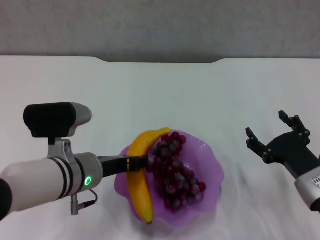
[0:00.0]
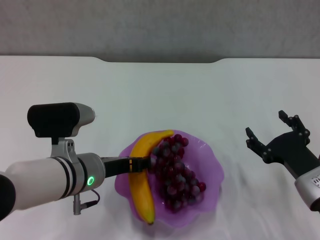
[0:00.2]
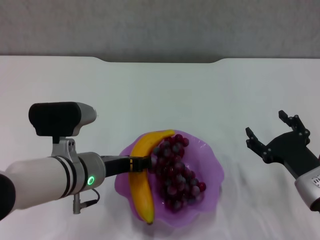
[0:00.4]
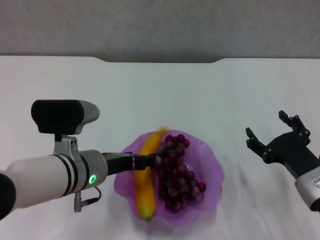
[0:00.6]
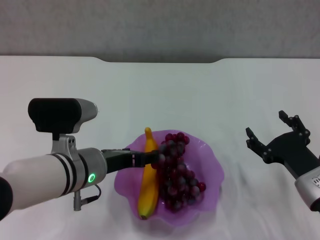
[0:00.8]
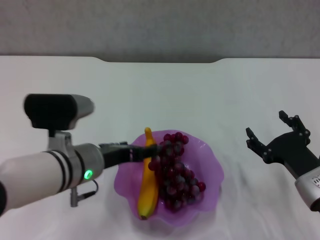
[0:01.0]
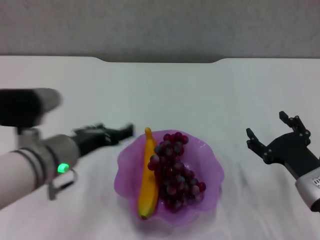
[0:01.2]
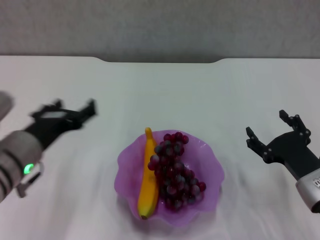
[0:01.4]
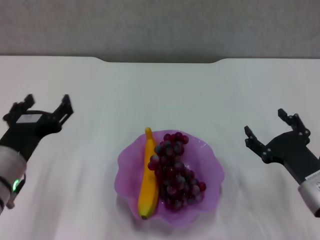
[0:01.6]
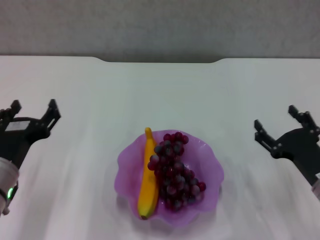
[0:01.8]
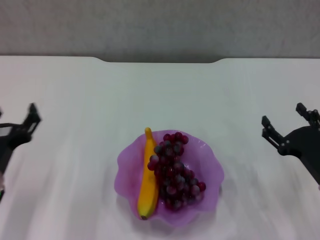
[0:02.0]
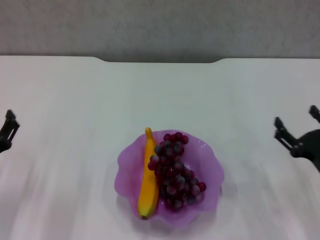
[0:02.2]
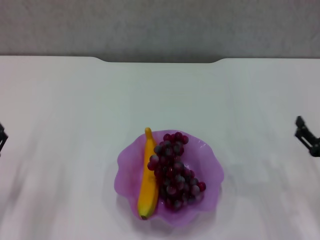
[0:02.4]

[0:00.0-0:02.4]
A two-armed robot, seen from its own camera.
0:00.0 to 0:01.2: The left gripper opens up.
0:01.2 to 0:02.4: The right gripper shifts roughly 5 cm to the right. Meanwhile the left gripper travels to the left, downward and backward by roughly 15 cm.

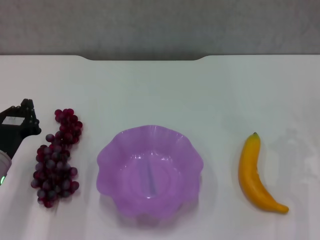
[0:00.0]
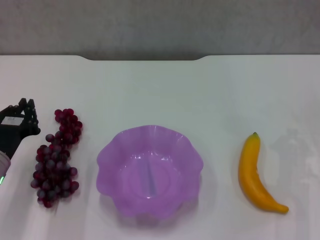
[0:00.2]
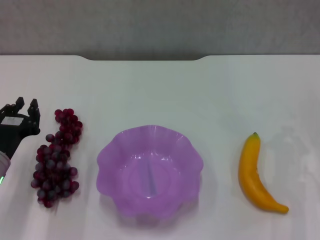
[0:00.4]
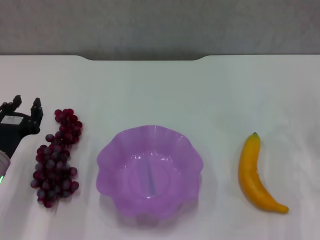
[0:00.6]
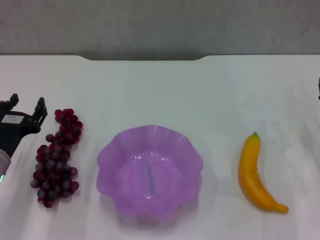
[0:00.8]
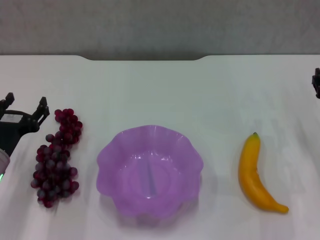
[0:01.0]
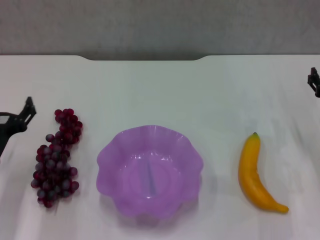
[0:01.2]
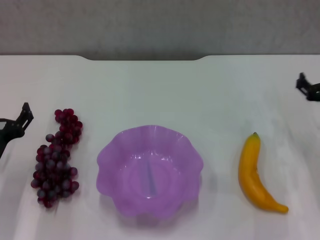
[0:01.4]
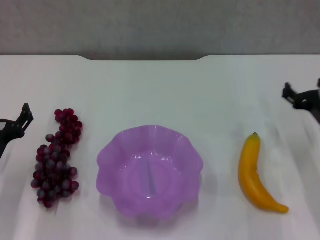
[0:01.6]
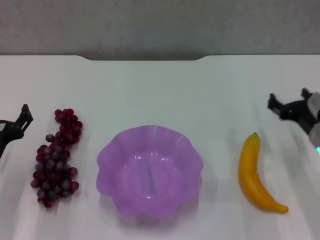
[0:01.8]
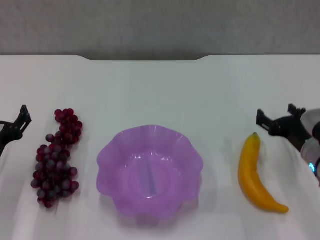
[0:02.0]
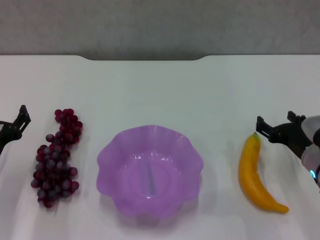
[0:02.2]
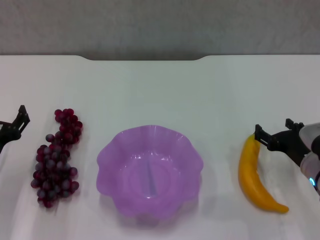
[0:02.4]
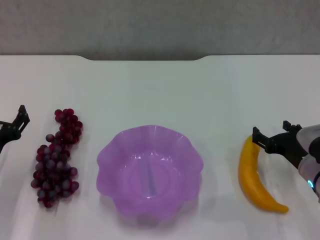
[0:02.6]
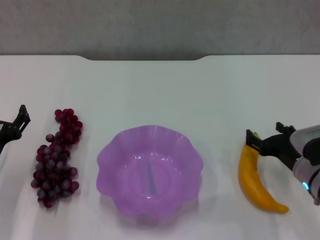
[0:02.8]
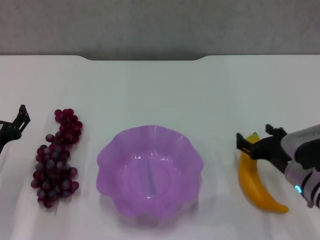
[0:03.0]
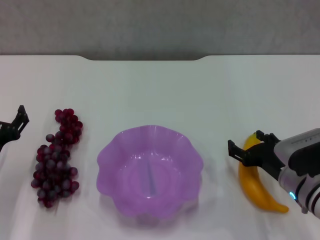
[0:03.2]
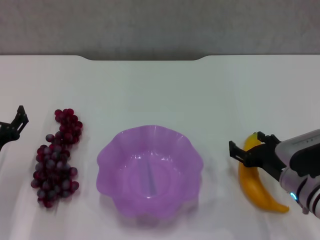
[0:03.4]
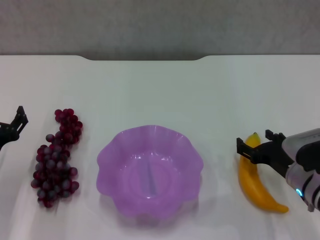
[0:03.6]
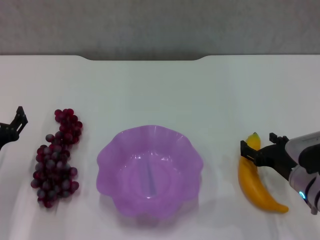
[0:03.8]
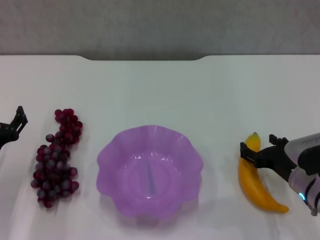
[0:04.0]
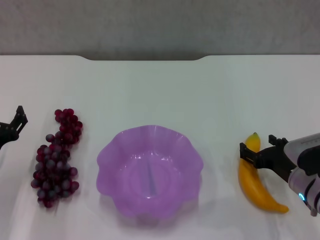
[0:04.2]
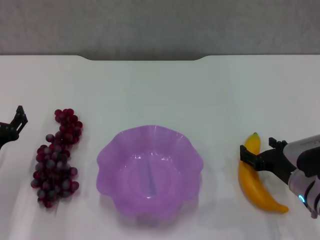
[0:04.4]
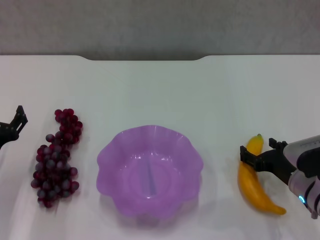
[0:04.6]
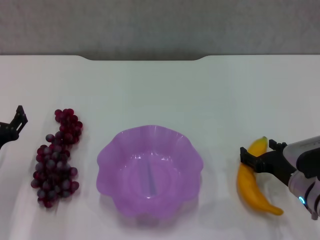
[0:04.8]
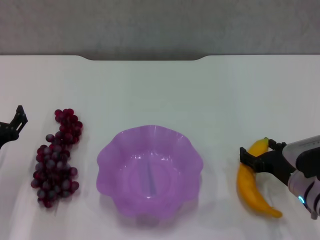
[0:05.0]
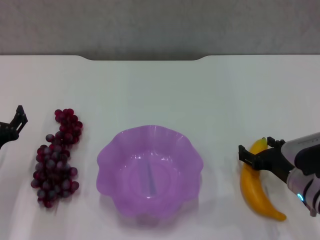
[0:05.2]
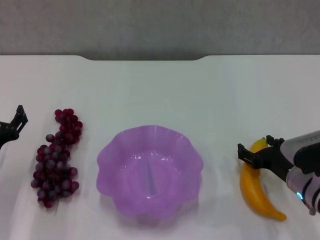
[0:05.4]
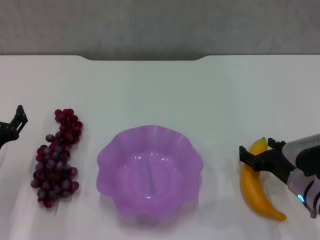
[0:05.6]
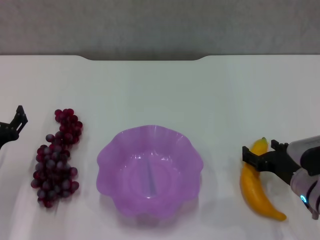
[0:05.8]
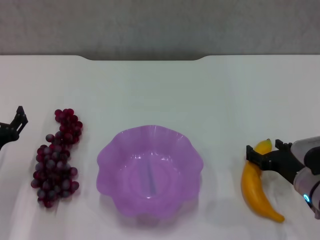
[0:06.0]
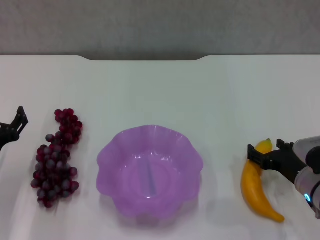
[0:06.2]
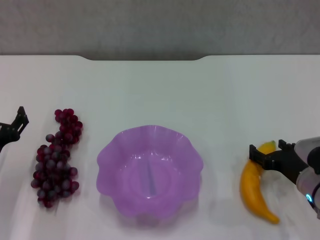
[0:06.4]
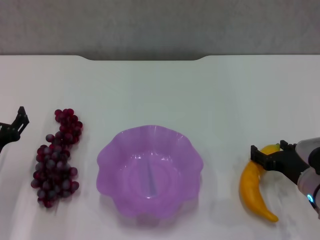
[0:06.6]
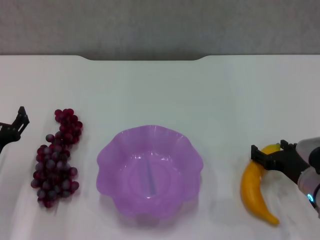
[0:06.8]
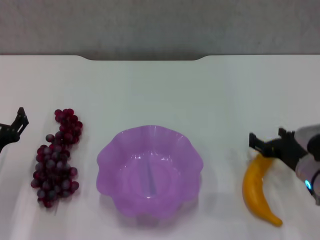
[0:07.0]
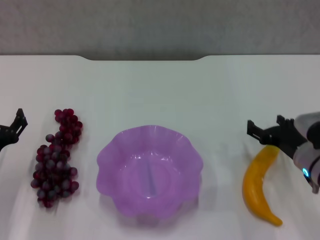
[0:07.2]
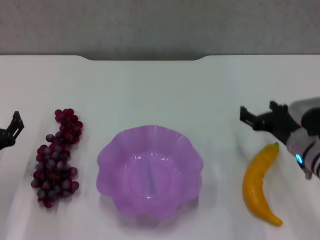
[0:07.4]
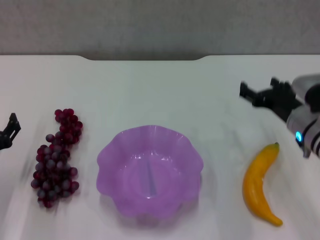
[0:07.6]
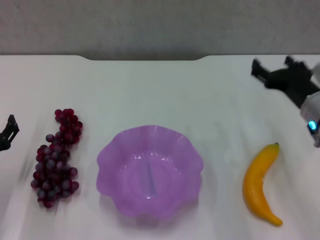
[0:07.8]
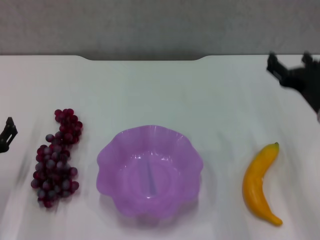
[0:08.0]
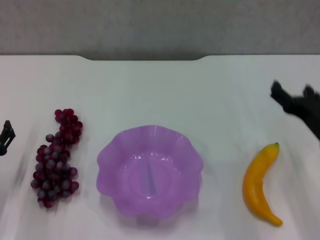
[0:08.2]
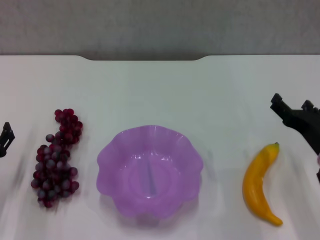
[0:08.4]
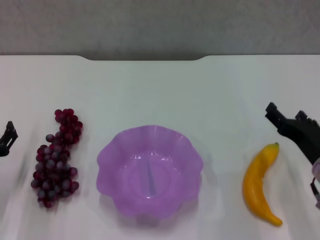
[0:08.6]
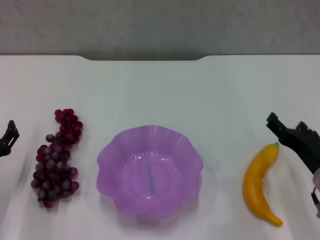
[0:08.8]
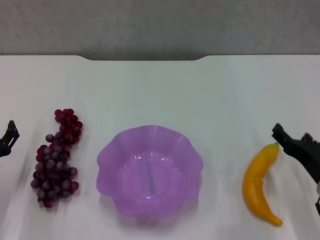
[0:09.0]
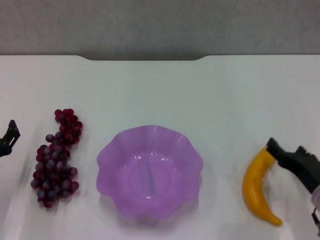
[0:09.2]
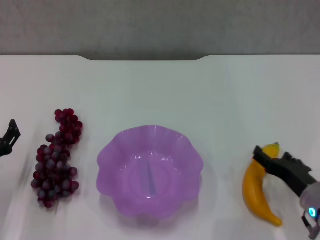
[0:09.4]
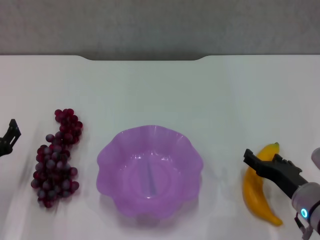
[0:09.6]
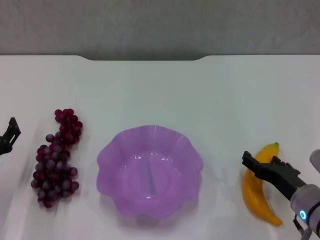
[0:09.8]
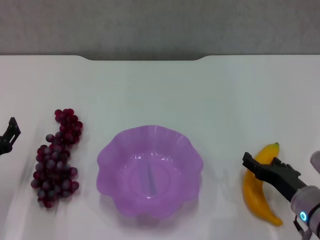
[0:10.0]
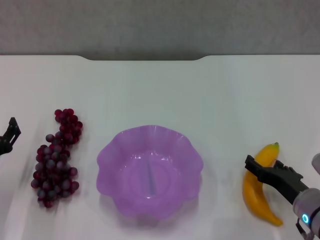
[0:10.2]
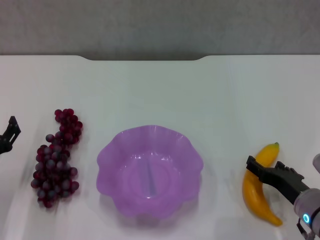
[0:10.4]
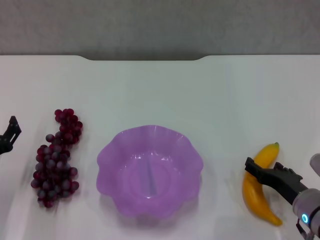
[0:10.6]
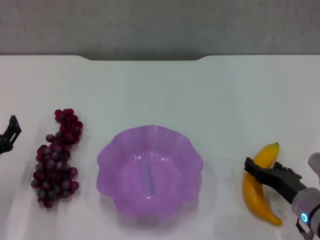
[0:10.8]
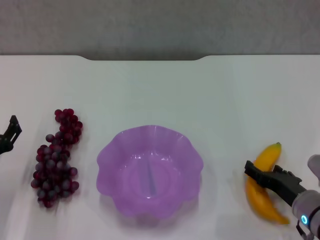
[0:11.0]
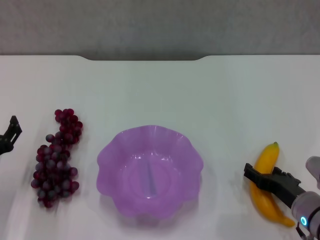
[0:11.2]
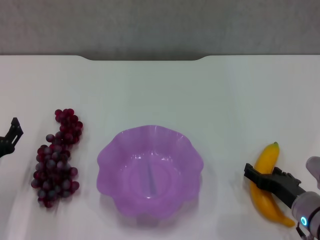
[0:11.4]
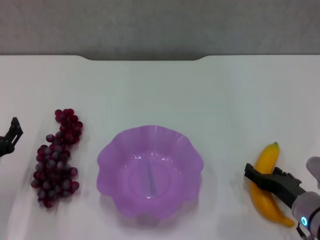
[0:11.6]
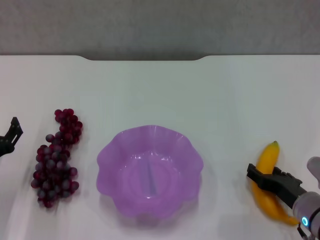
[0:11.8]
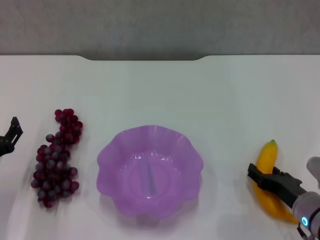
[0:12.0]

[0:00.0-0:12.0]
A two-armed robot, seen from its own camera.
0:00.0 to 0:01.6: The right gripper moves about 5 cm, and opens, while the left gripper opens its fingers.
0:01.6 to 0:03.0: The right gripper shifts approximately 5 cm backward.
0:03.0 to 0:04.4: The grippers make only small movements.
0:04.4 to 0:06.0: Both grippers stay about where they are.
0:06.0 to 0:07.6: The right gripper heads upward and forward, covering some 10 cm.
0:07.6 to 0:09.0: The right gripper is displaced backward by some 10 cm.
0:09.0 to 0:10.4: The grippers stay close to where they were, moving slightly.
0:10.4 to 0:12.0: The two grippers keep their place.

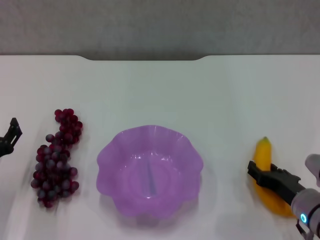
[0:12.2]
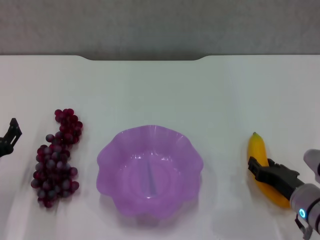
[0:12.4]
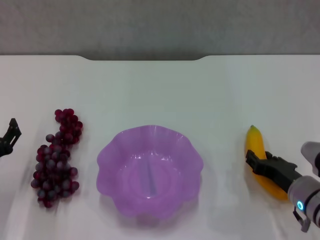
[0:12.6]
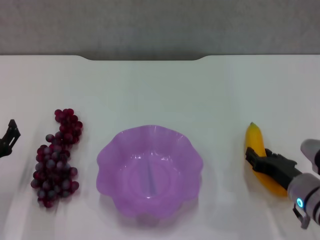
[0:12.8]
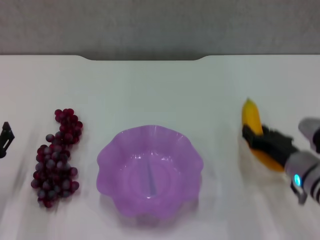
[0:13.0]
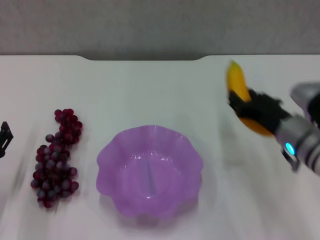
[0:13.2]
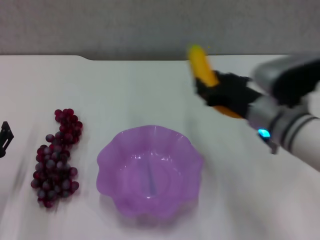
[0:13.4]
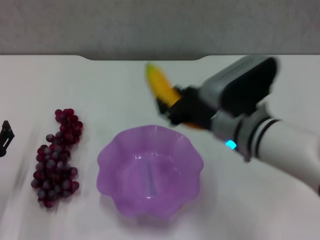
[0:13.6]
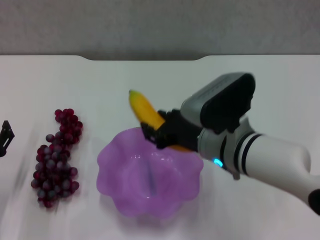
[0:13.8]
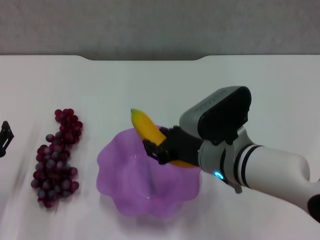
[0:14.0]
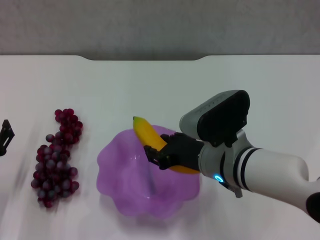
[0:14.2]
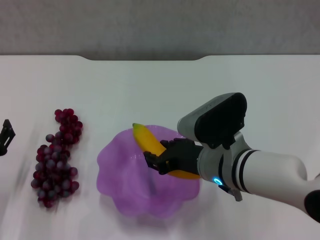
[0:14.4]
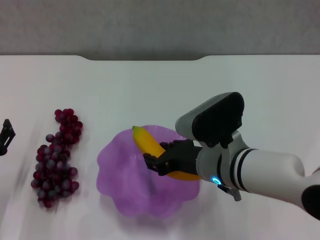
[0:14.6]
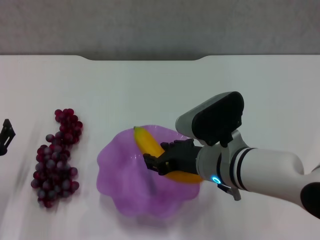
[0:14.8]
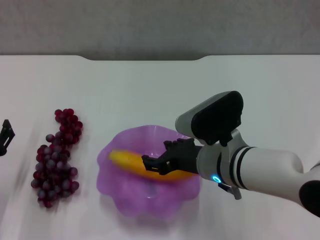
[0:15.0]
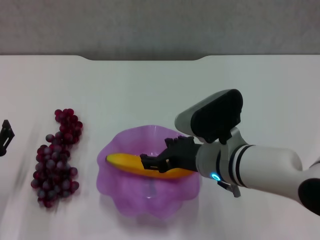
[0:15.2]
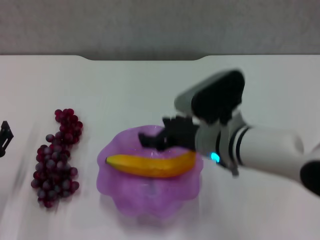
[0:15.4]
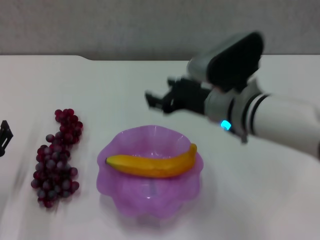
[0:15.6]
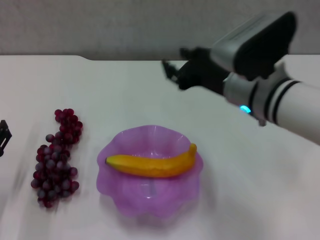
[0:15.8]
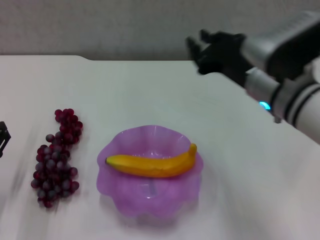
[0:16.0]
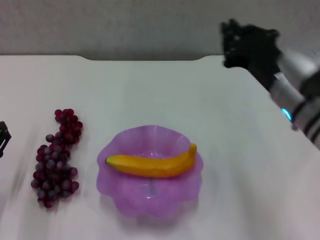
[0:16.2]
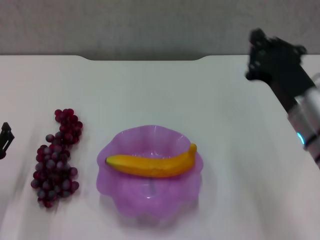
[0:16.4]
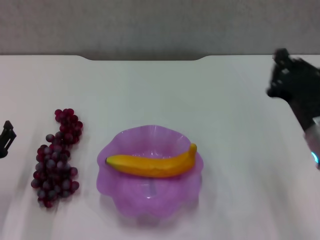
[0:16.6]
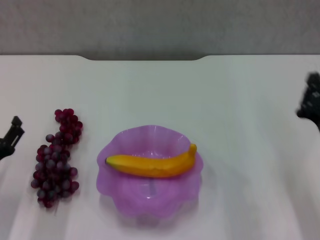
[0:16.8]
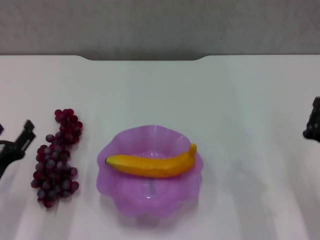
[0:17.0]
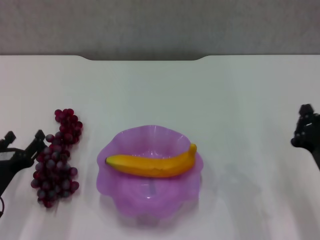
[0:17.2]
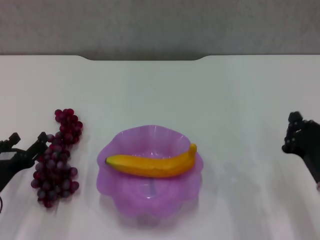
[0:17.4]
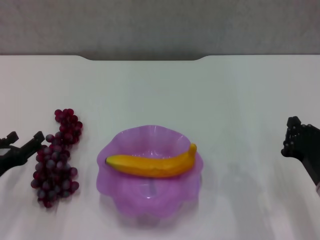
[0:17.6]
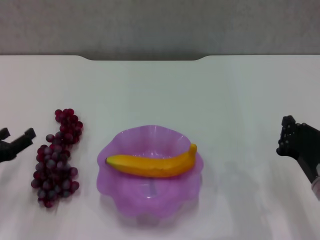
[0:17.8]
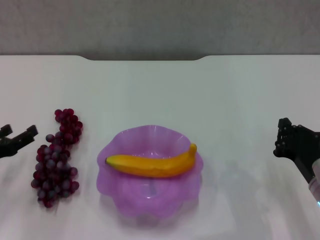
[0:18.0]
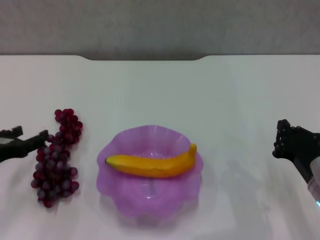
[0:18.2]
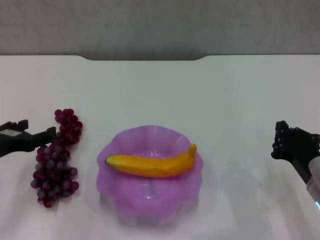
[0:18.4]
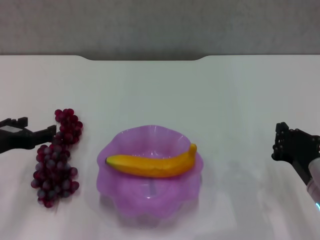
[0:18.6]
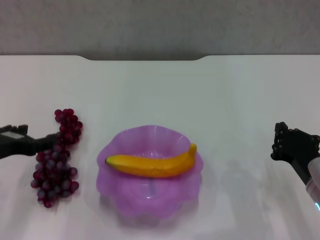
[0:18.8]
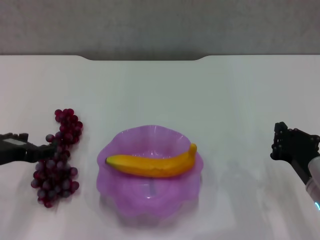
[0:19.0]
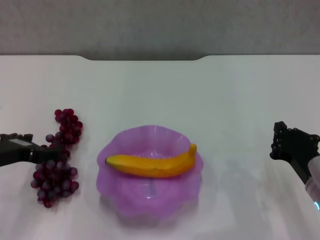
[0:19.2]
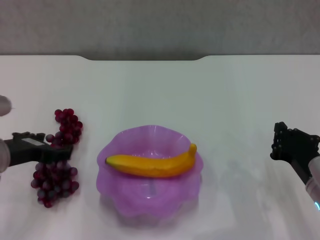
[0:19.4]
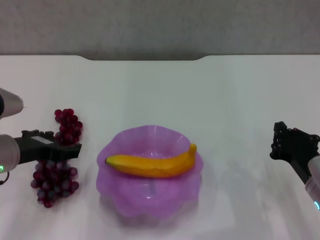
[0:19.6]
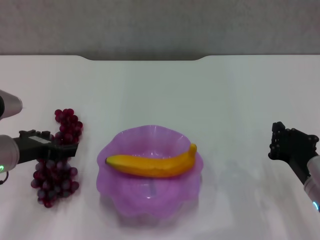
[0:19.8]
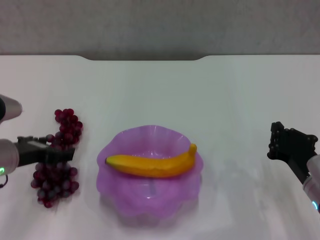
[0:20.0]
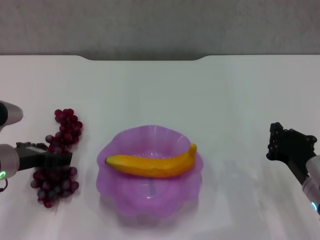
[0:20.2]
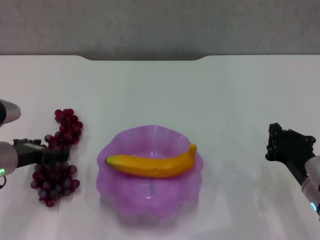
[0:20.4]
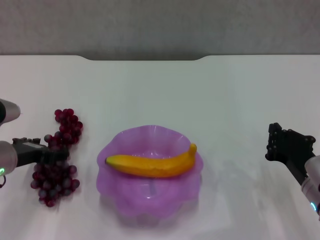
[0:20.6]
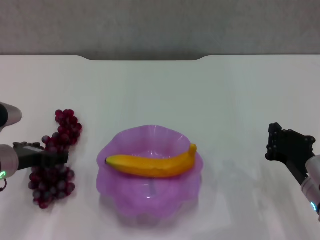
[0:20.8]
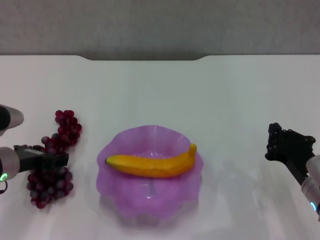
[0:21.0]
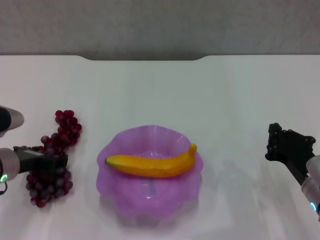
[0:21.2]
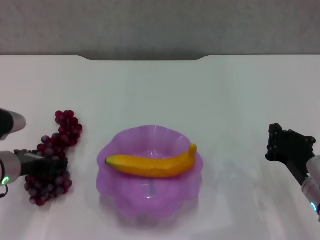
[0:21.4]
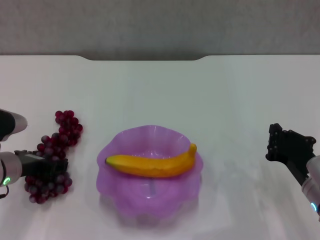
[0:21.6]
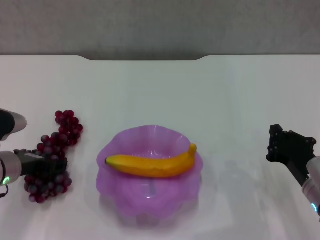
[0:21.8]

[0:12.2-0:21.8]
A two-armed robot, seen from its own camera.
Step, 0:12.6 to 0:15.2: Place the banana in the purple plate with right gripper.
0:12.2 to 0:13.8: The right gripper is displaced to the left and upward by approximately 20 cm.
0:13.8 to 0:15.4: The grippers make only small movements.
0:15.4 to 0:17.0: The right gripper travels to the right and backward by roughly 20 cm, and closes.
0:17.0 to 0:18.6: The left gripper shifts some 10 cm upward.
0:18.6 to 0:20.2: The left gripper moves about 5 cm.
0:20.2 to 0:21.8: There are only small adjustments of the grippers.
